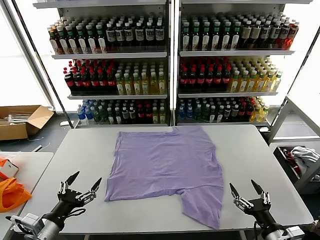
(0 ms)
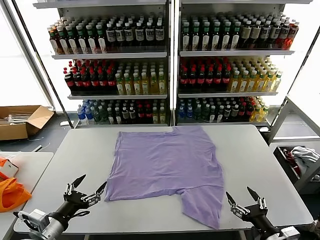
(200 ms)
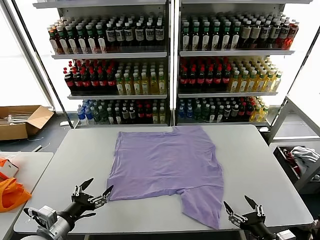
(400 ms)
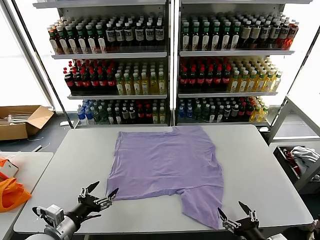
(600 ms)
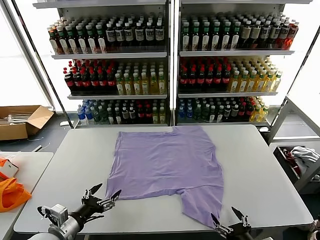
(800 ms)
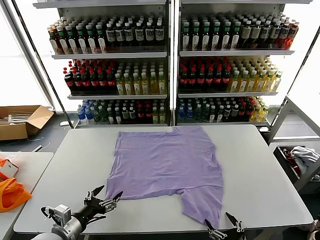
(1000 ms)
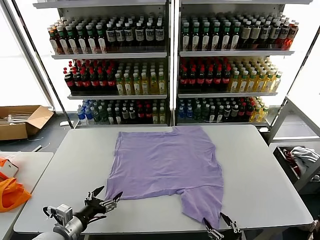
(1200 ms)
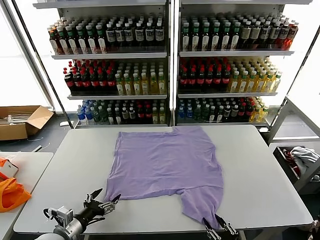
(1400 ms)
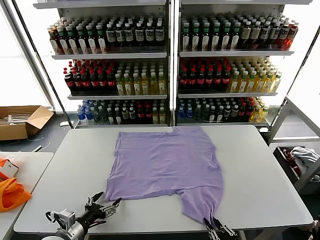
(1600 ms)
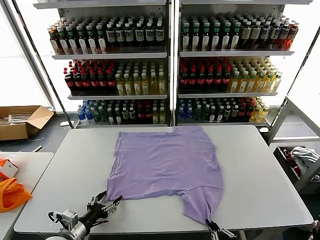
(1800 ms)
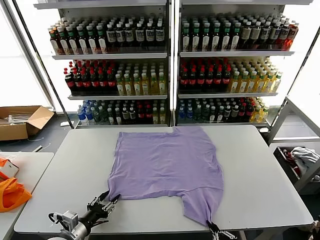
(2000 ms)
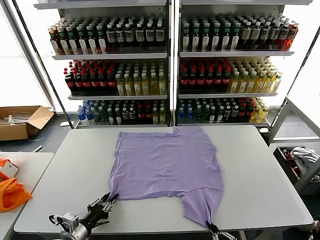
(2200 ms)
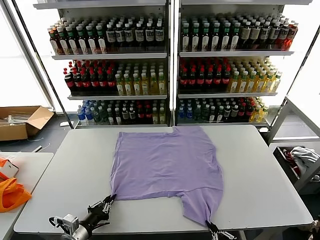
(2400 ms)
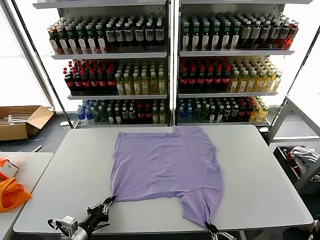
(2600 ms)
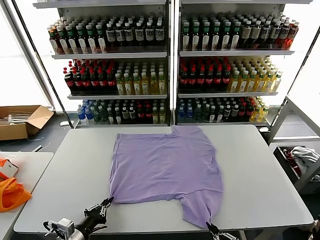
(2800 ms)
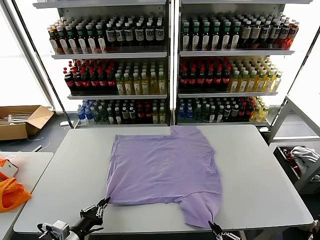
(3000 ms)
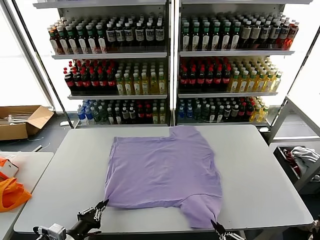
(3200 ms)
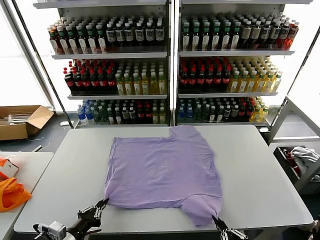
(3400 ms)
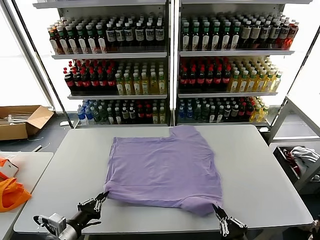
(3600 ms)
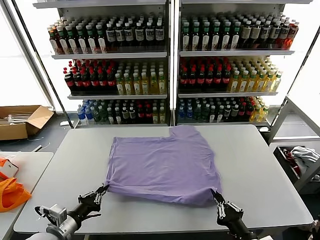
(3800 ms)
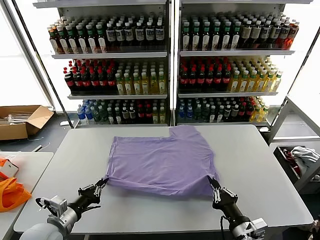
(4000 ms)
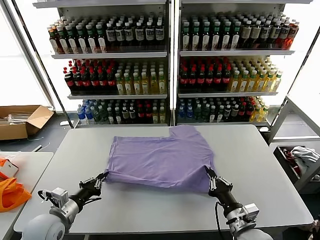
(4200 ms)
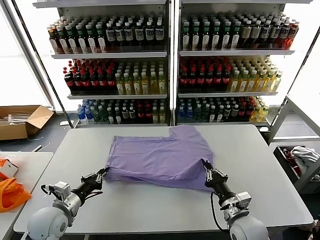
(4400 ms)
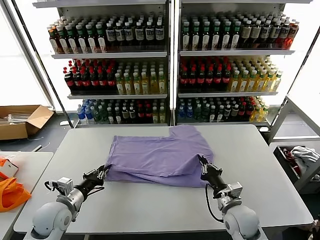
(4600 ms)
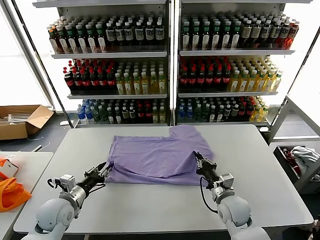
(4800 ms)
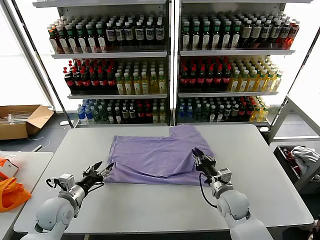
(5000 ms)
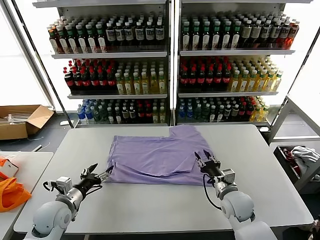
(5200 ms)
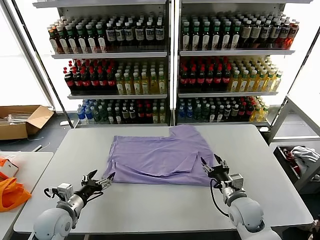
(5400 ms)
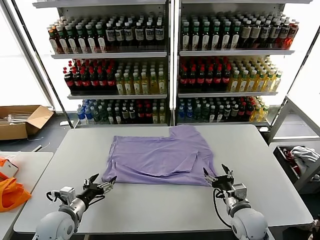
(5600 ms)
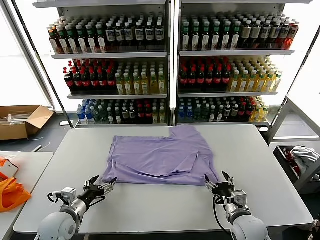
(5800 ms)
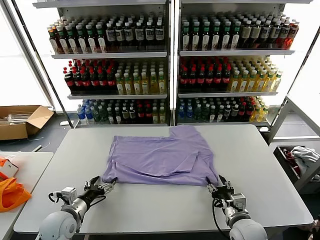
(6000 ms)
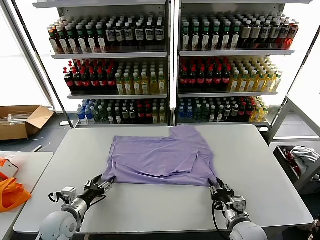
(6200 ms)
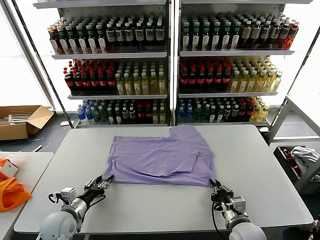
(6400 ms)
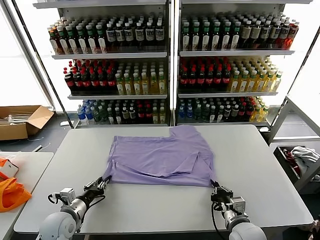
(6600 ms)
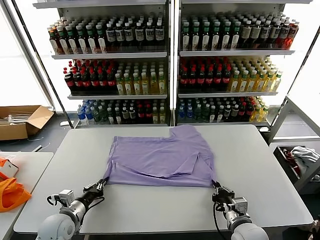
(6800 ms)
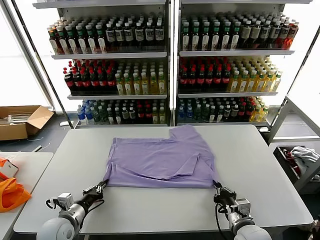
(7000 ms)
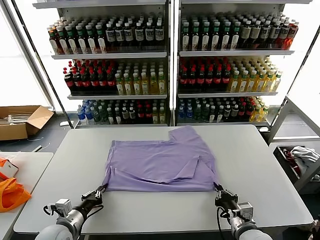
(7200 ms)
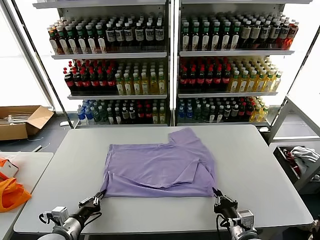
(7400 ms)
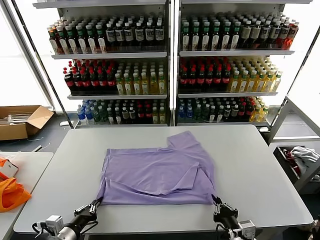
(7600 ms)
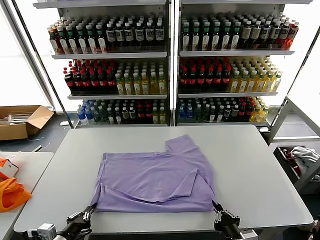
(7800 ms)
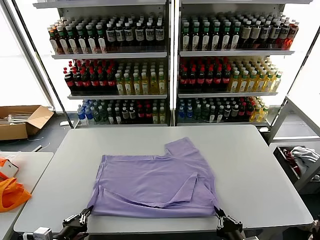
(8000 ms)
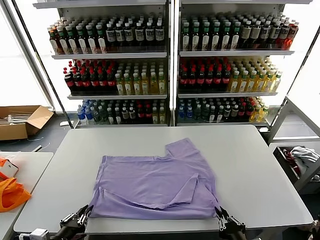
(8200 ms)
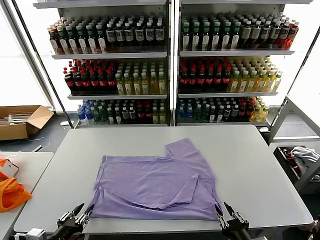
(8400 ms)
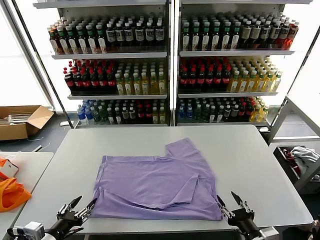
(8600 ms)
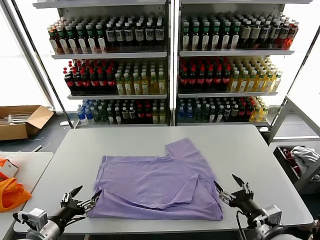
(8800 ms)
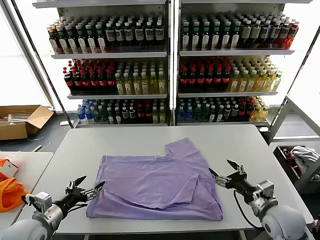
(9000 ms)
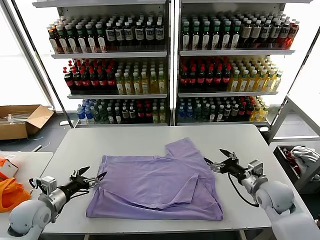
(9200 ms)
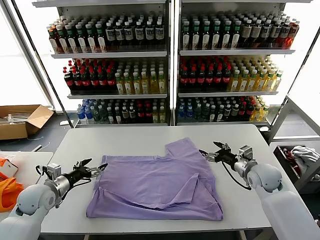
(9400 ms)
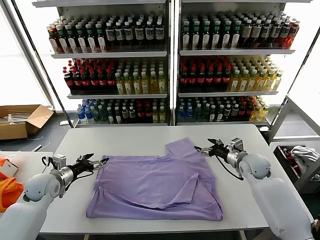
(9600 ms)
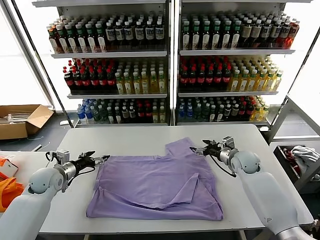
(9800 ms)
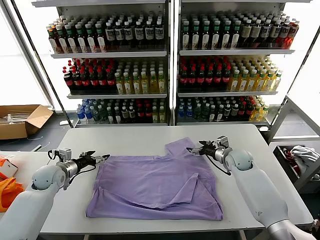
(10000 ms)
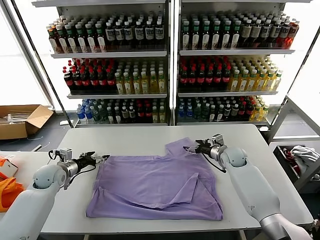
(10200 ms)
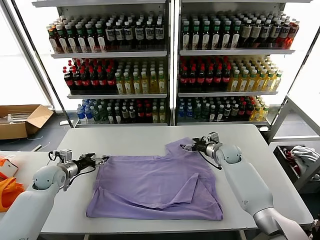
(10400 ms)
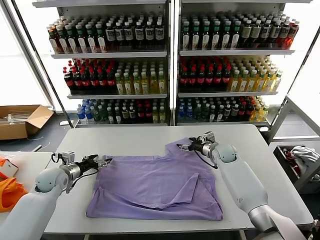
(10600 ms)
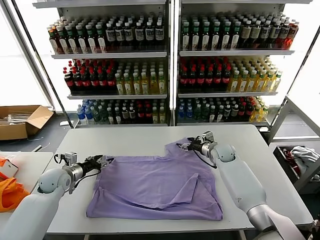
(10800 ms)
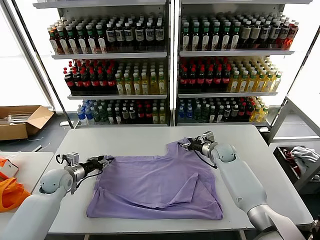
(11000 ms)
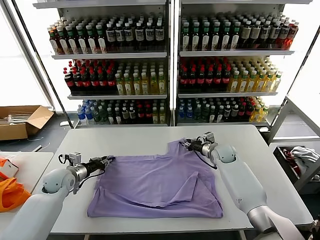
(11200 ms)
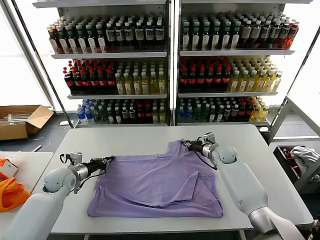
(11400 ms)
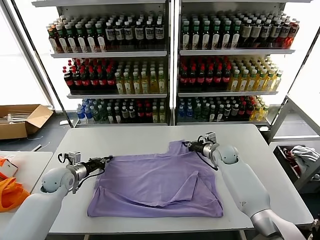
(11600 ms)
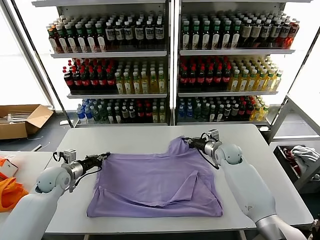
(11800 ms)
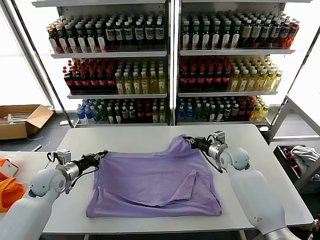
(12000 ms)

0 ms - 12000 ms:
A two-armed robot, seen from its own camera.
Task of the whole recording: fold and organize the clothes.
Step, 0 ms - 2600 ms: use both grippers simultaneously to clamp the lower edge of the clothing fabric.
Step, 2800 ms - 5000 ms: use both grippers to drag the lower edge of the fabric forward and fold it over the upper edge.
Step, 5400 ms - 8400 ms: Drag the clothes downward with both gripper.
Step, 8600 ms - 11400 ms: use both grippers simultaneously to clamp the upper edge of the clothing fabric.
1600 ms - 3000 ms: The left gripper closes.
3000 ms - 4400 ms: The right gripper travels forward by approximately 20 cm, while the left gripper goes approximately 10 cm forward.
4400 ms - 6000 ms: The right gripper reaches some 5 cm forward, then returns, and opens up, while the left gripper opens its fingers.
6000 ms - 7600 ms: Both grippers travel together backward, roughly 10 cm. The right gripper closes; the left gripper closes up.
7600 ms - 9000 ms: The right gripper shifts roughly 15 cm forward and to the right, and opens up; the left gripper goes approximately 5 cm upward, and opens up.
9000 ms - 10400 ms: Both grippers move forward, approximately 25 cm.
10400 ms - 12000 ms: The left gripper ends up about 5 cm from where it was, and closes. Meanwhile the right gripper travels backward by roughly 5 cm, and closes up.

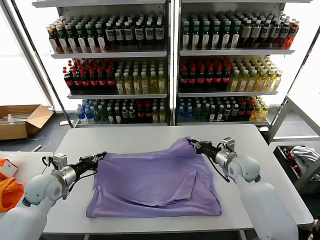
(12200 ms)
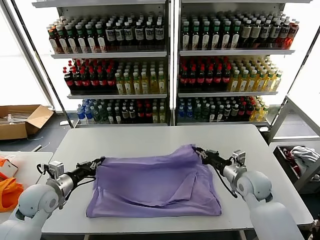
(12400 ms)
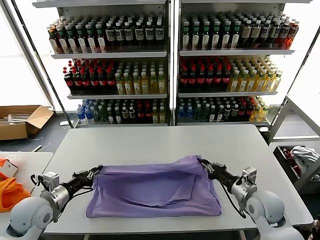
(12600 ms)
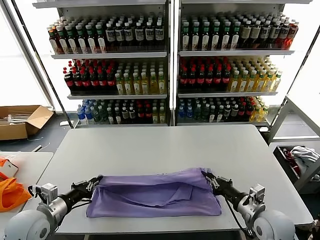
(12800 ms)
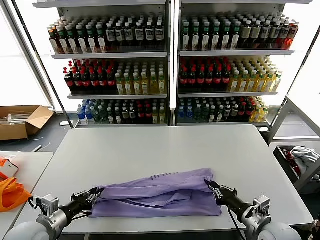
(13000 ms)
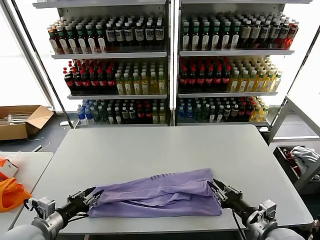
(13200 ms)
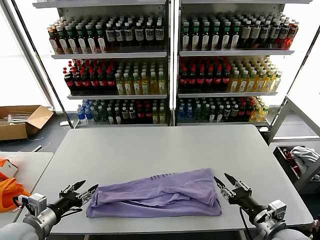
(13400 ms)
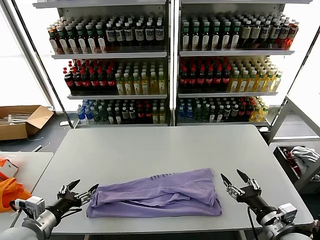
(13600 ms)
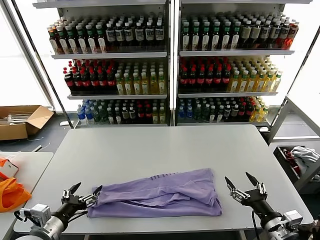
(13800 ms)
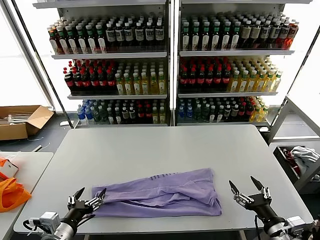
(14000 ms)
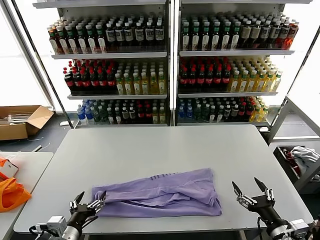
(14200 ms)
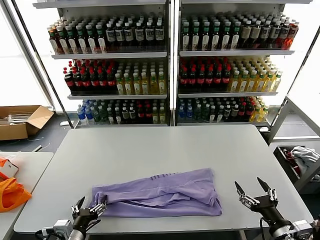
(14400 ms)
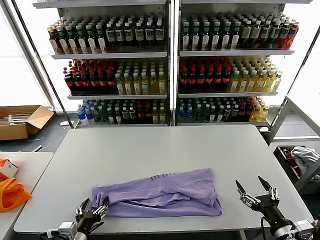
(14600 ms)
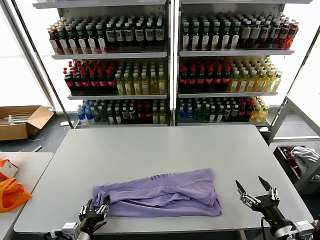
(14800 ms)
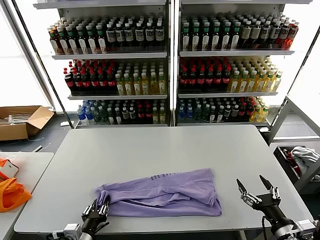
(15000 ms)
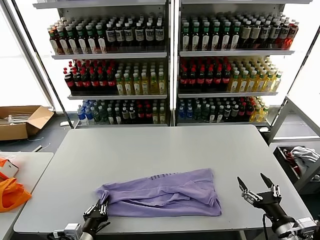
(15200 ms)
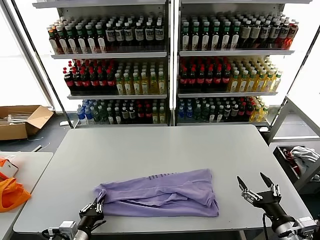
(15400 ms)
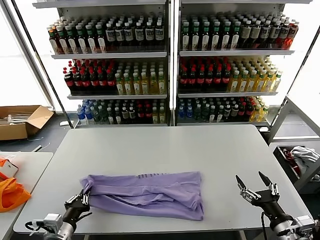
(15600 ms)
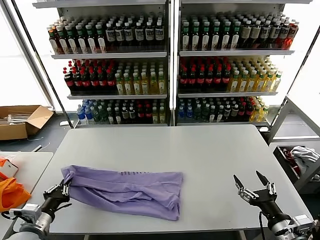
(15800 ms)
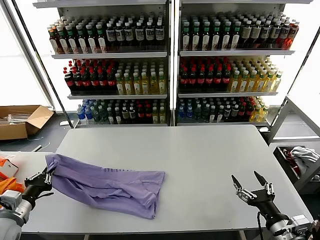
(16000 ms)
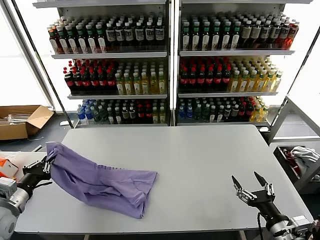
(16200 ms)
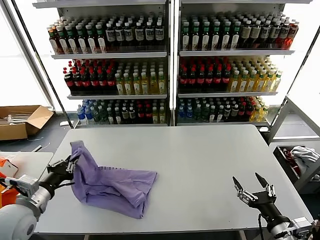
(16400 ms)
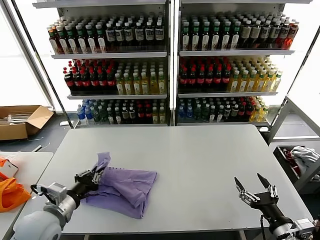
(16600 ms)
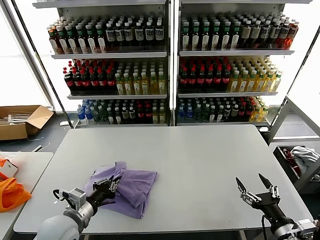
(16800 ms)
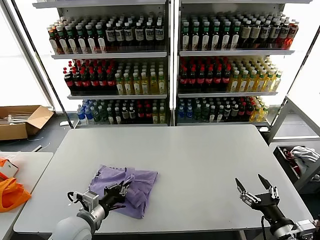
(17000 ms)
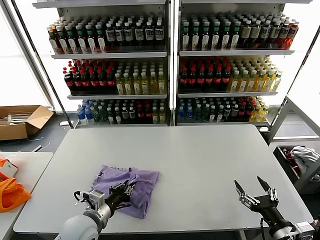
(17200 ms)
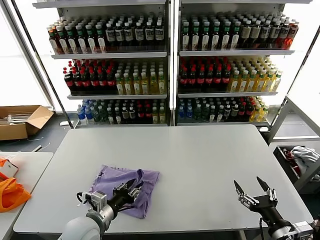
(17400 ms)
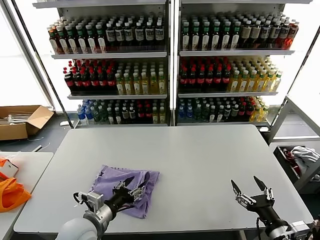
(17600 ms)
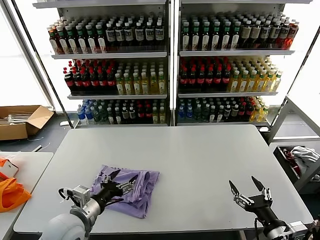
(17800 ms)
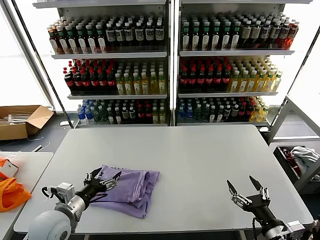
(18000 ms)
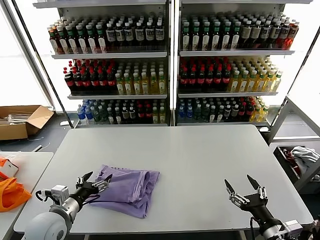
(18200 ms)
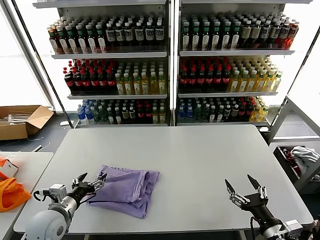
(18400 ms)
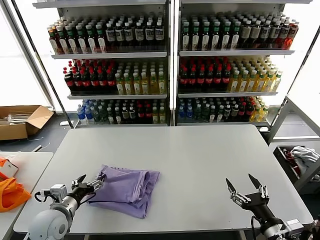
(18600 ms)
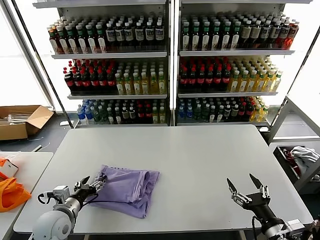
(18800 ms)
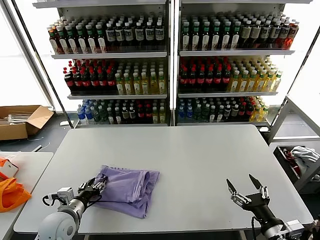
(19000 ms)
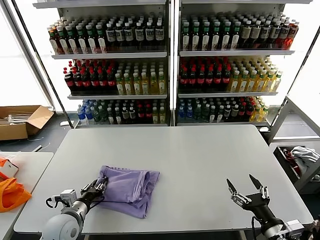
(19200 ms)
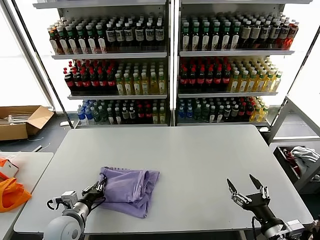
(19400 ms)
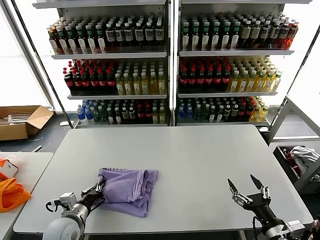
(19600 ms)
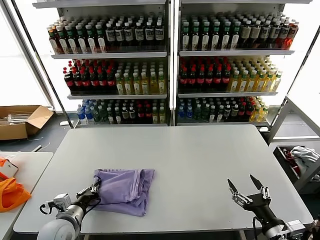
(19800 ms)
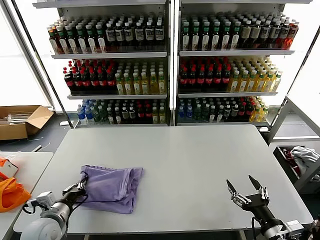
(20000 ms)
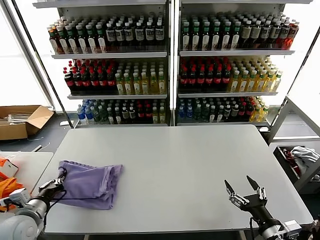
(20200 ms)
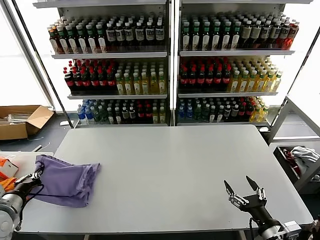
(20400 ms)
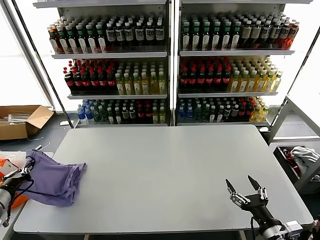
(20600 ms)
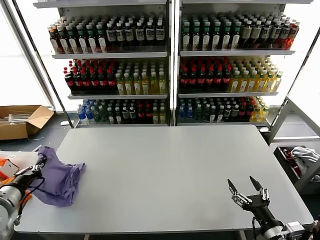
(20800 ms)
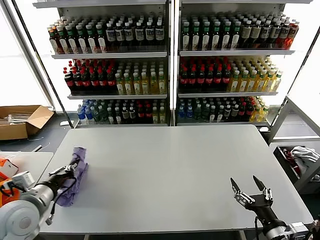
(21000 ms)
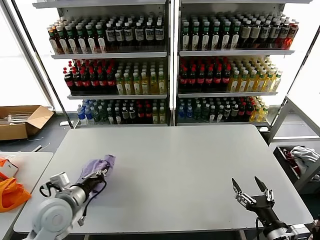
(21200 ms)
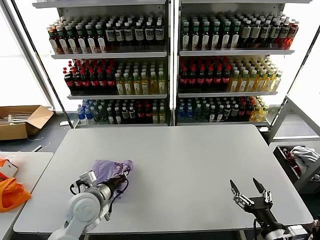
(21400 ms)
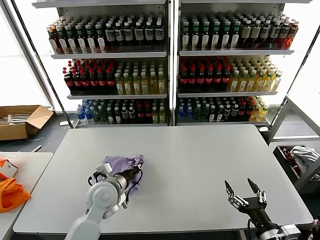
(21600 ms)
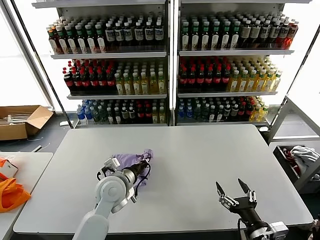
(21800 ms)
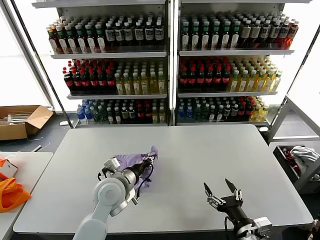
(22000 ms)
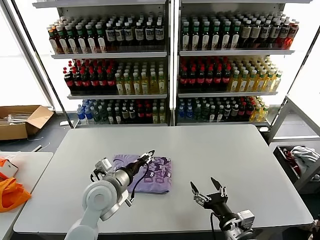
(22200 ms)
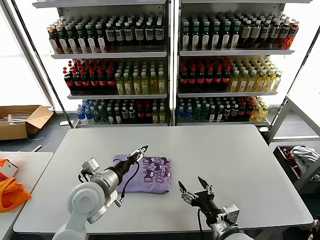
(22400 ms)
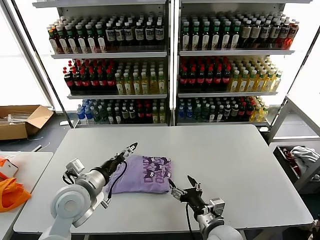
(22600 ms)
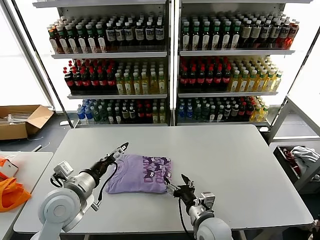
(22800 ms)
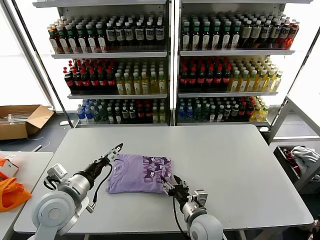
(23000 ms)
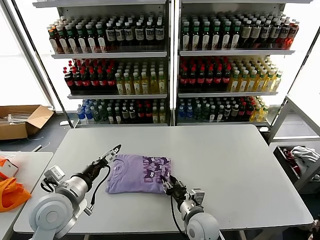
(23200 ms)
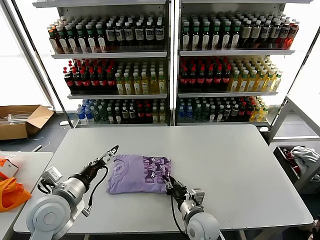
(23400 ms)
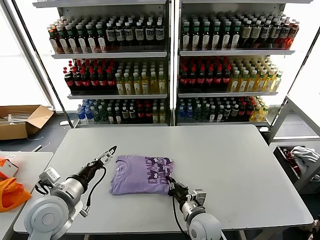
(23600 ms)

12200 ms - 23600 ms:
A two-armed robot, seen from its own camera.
Task of the whole recording: fold and organize the clothes.
Step, 12200 ms - 13200 ms: use both grippers to drag the upper edge of the fabric backward and fold it over the lower edge.
Step, 13600 ms - 15200 ms: use the left gripper to clamp the left edge of the fabric.
Step, 15400 ms - 17400 ms: use the left gripper to drag the left edge of the fabric to the left and folds it over the right edge.
Step, 17800 ms - 22000 ms: Flip the folded clothes over with left gripper.
12200 ms - 13600 ms: Both grippers move backward, roughly 20 cm. The right gripper opens; the left gripper opens up.
13600 ms - 15000 ms: The left gripper moves downward and to the right, roughly 15 cm.
15000 ms - 16400 ms: The left gripper heads upward, to the left and forward, covering some 20 cm, and closes its fingers.
16400 ms - 17800 ms: The left gripper shifts roughly 15 cm to the right, and opens up.
17800 ms - 19400 ms: The left gripper moves downward and to the left, roughly 10 cm, and closes its fingers.
19400 ms - 20800 ms: The left gripper travels to the left and upward by approximately 20 cm.
20800 ms - 22200 ms: The left gripper moves to the right, roughly 30 cm, and opens. Meanwhile the right gripper shifts approximately 10 cm to the left.
22200 ms - 23600 ms: The right gripper shifts some 15 cm to the left, forward and downward, and closes; the left gripper shifts roughly 15 cm to the left and backward, and opens up.
